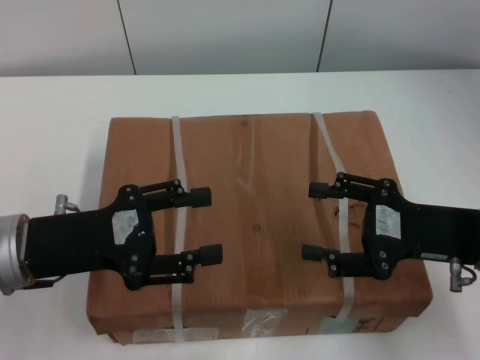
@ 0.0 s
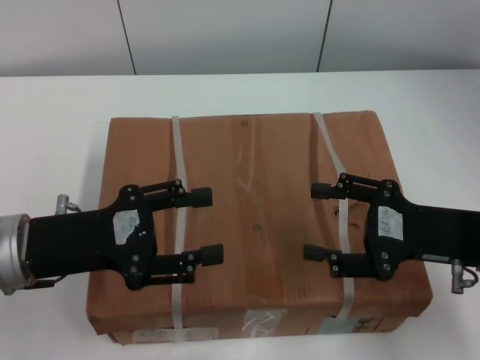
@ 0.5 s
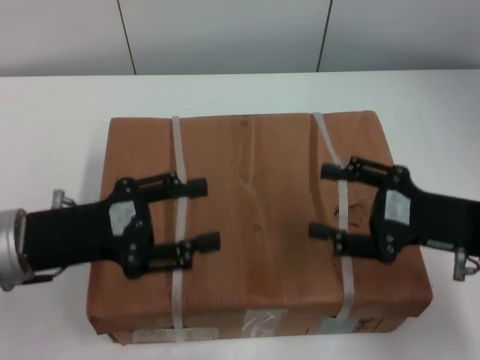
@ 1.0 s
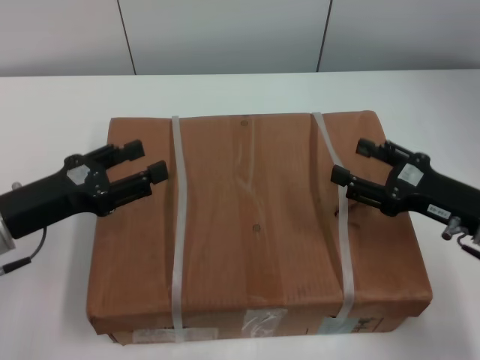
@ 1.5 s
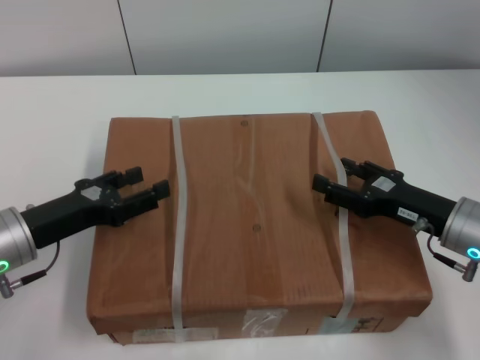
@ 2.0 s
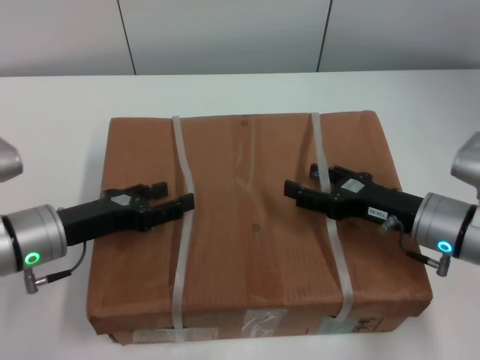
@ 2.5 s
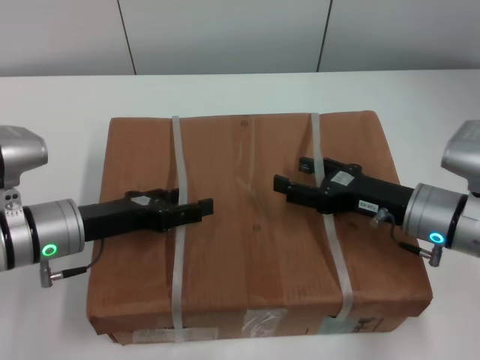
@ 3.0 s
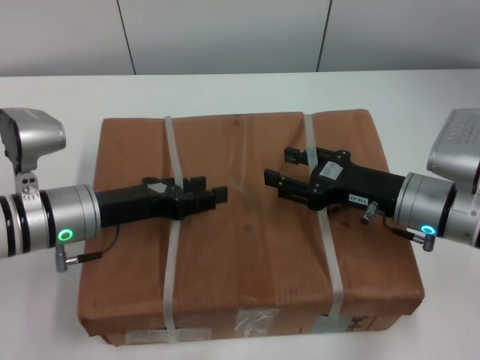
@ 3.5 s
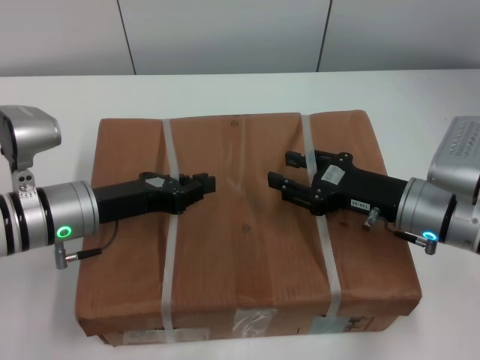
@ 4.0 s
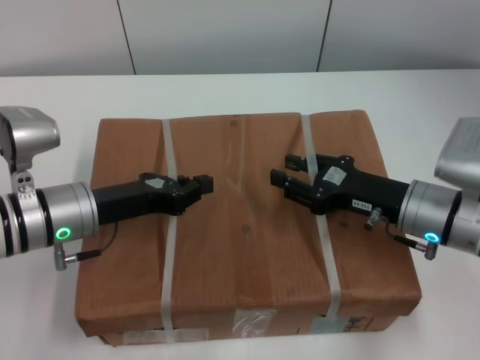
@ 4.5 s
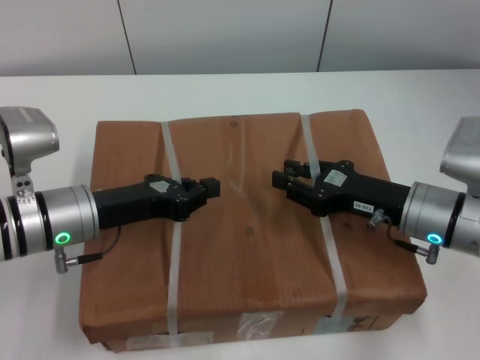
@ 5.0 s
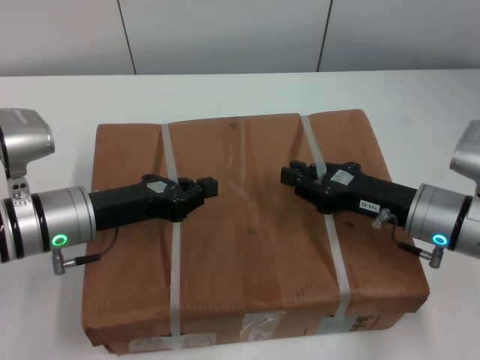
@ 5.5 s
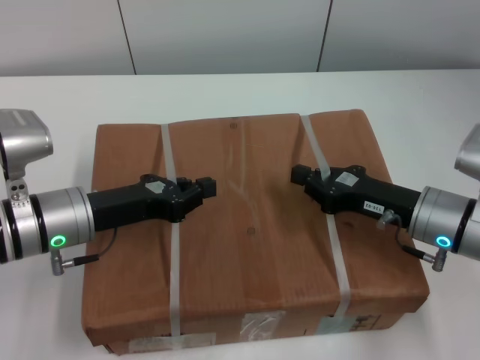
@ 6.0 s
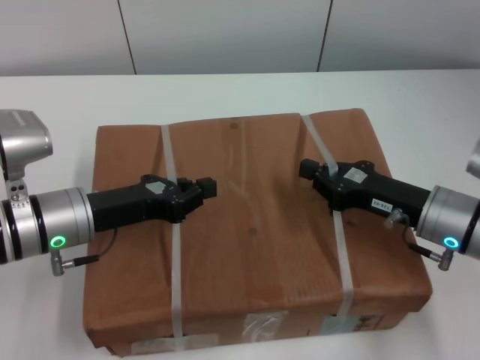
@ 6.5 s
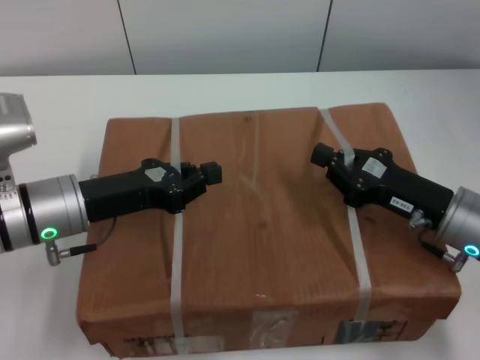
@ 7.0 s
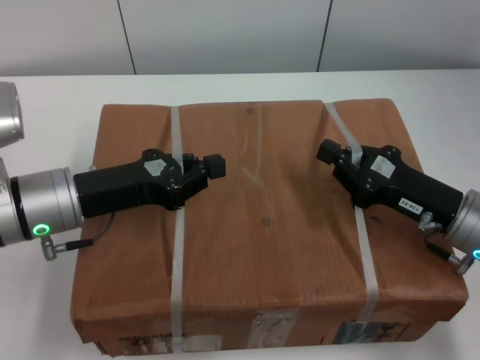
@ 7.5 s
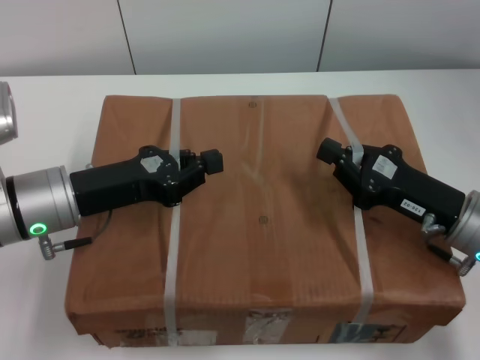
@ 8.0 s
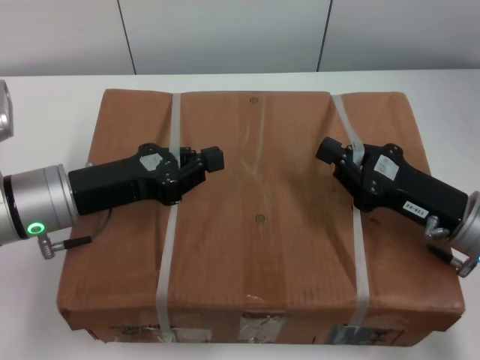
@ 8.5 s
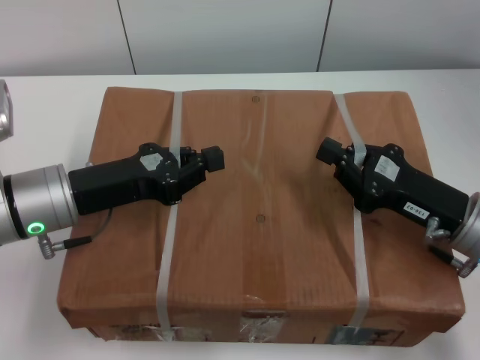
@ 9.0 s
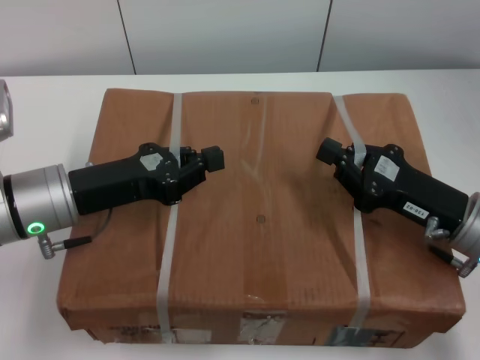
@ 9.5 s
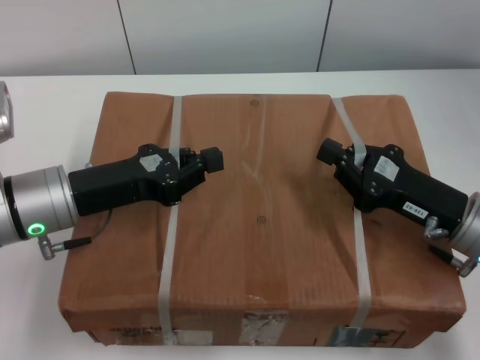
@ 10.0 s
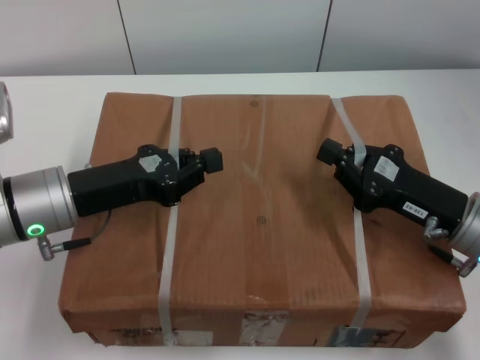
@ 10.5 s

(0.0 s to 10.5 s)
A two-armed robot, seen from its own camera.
Task of the whole recording: pick up the box from the table with both arms.
Step, 0.0 s - 6.0 s: Grasp the bandage with left gripper.
Step, 0.0 s - 6.0 s: Grasp the bandage with right gripper.
Step, 6.5 s - 7.5 s: Lift the box with left gripper.
Step, 6.5 s - 7.5 s: Lift the box with right gripper.
0.0 s - 2.0 s: The grippers both shift downward by some 5 cm.
2.0 s - 4.0 s: The right gripper moves about 5 cm. The left gripper heads to the right, covering approximately 5 cm, and closes its fingers.
4.0 s - 6.5 s: The left gripper closes its fingers; the right gripper closes.
8.5 s - 10.5 s: The two grippers keep their place.
